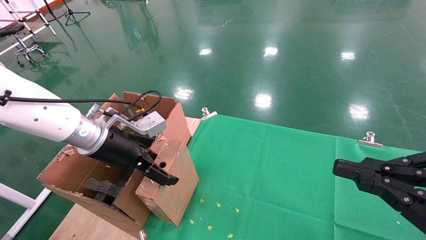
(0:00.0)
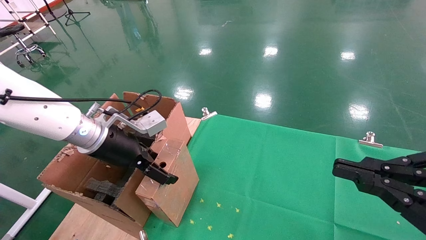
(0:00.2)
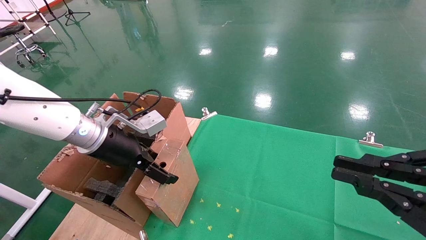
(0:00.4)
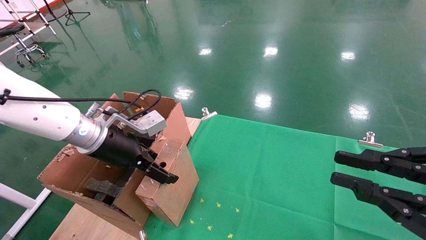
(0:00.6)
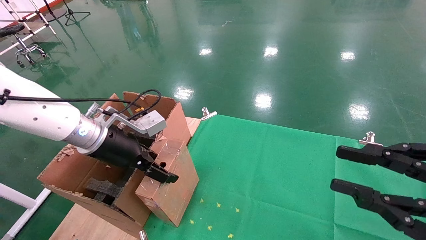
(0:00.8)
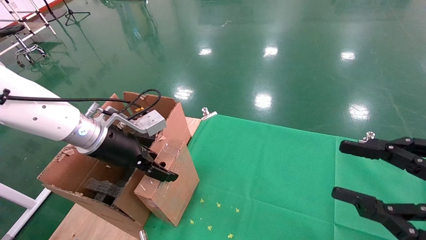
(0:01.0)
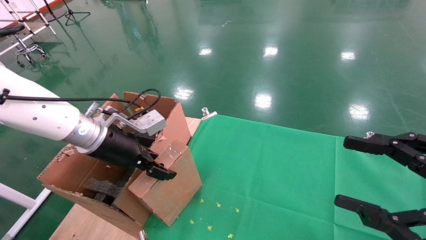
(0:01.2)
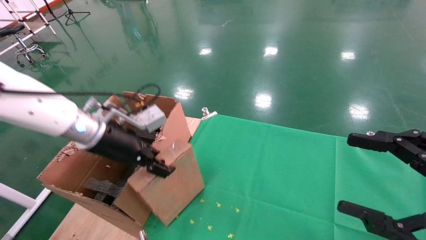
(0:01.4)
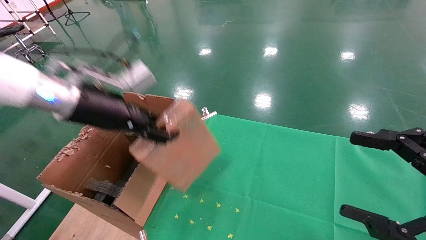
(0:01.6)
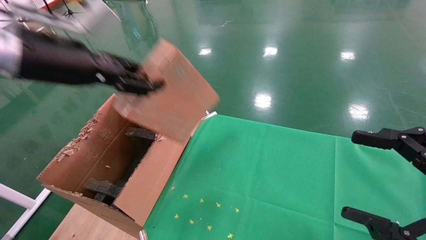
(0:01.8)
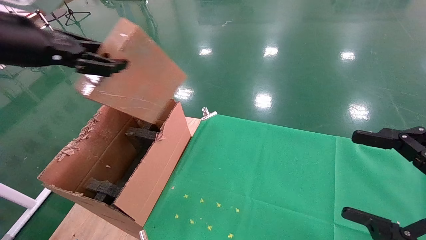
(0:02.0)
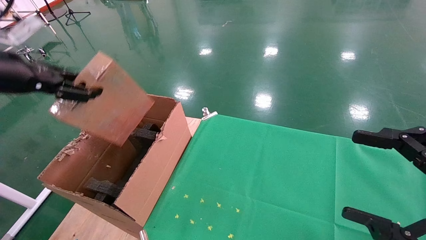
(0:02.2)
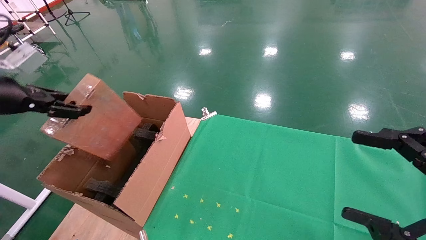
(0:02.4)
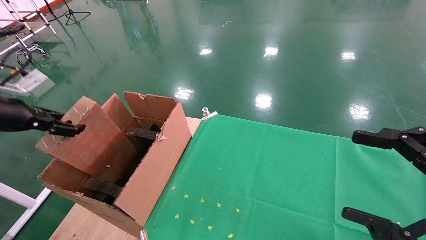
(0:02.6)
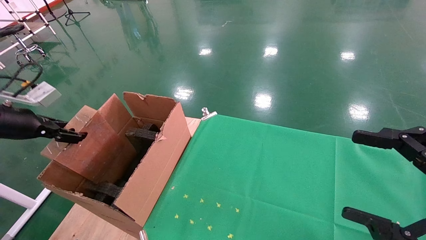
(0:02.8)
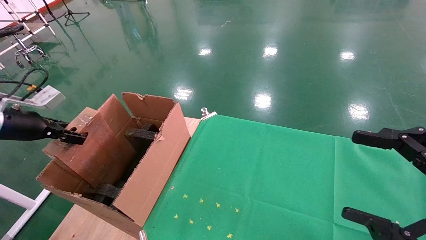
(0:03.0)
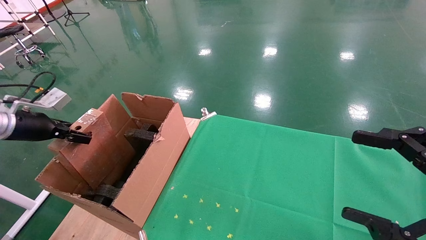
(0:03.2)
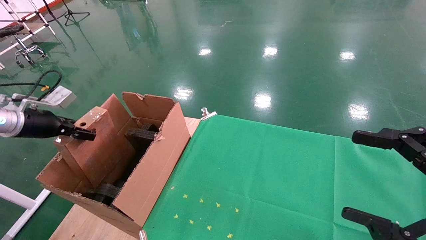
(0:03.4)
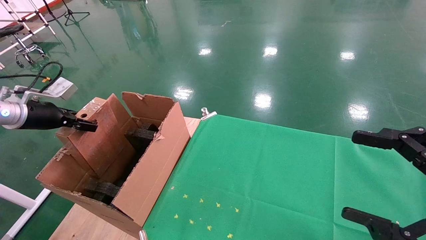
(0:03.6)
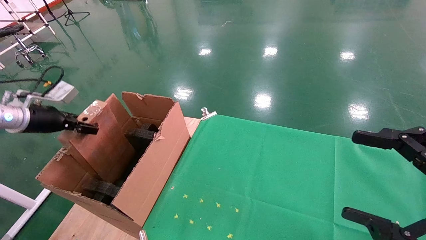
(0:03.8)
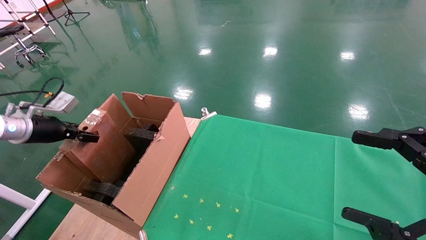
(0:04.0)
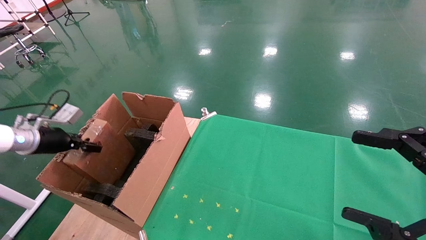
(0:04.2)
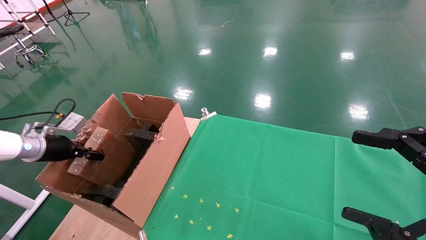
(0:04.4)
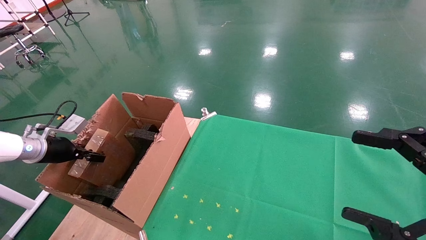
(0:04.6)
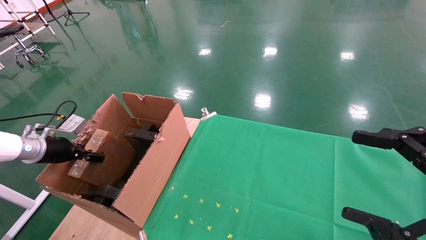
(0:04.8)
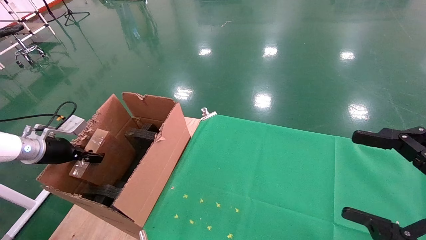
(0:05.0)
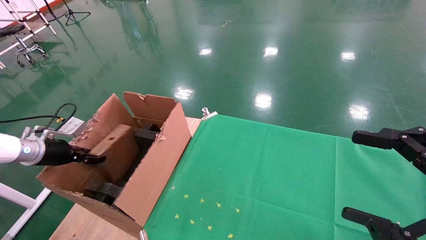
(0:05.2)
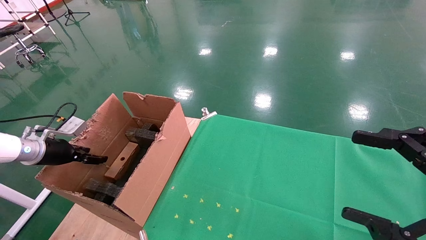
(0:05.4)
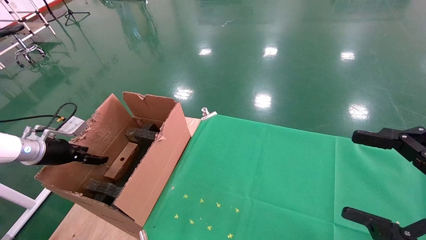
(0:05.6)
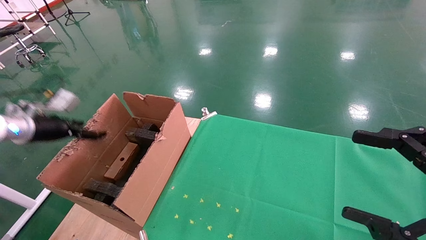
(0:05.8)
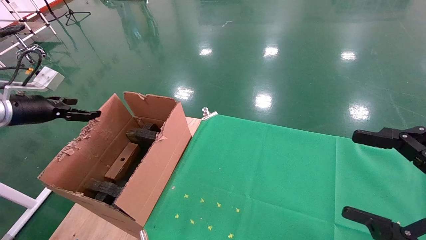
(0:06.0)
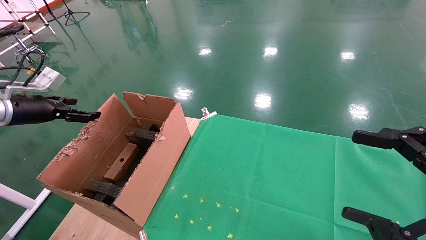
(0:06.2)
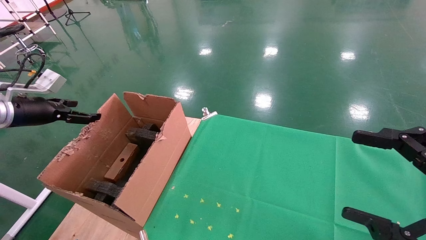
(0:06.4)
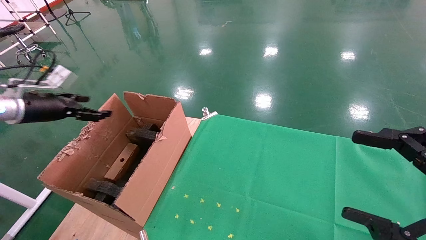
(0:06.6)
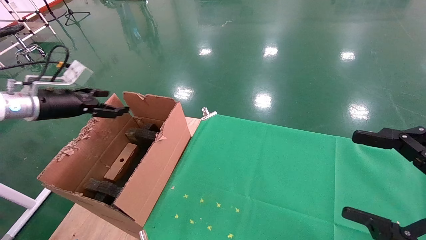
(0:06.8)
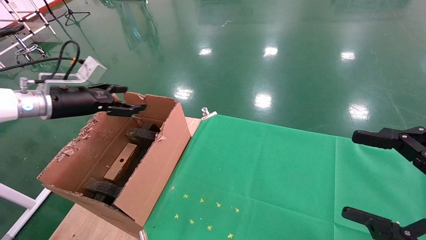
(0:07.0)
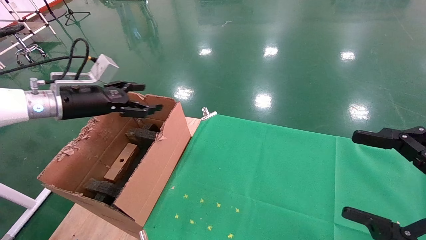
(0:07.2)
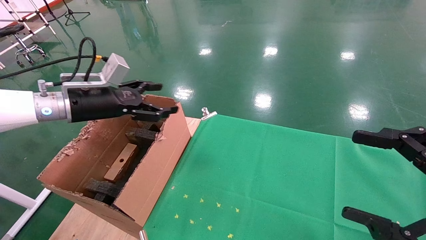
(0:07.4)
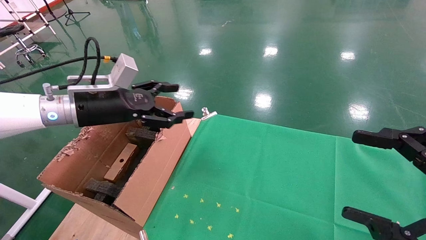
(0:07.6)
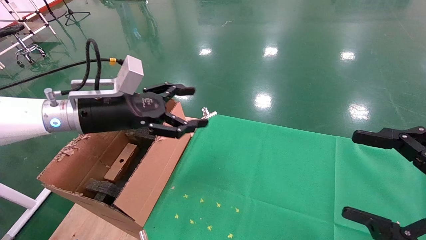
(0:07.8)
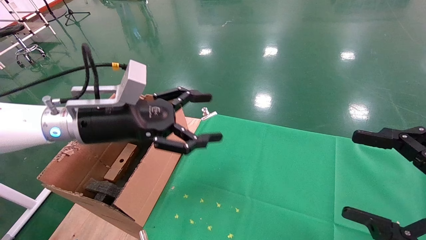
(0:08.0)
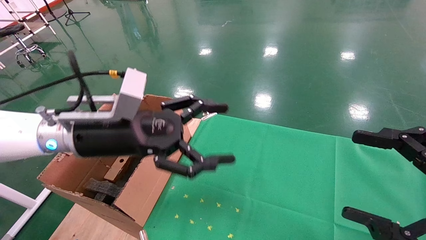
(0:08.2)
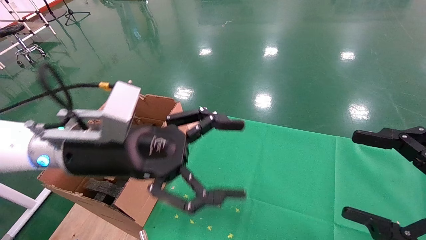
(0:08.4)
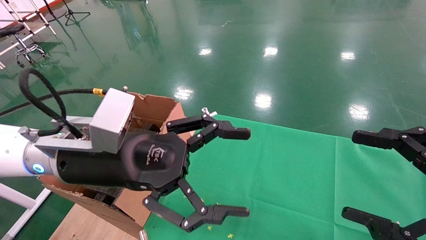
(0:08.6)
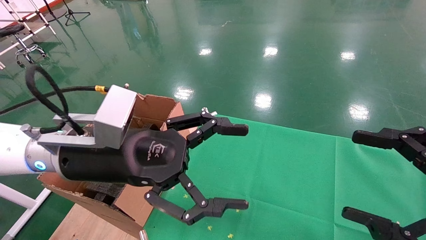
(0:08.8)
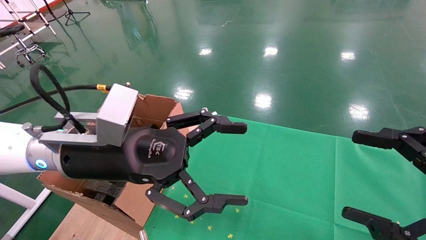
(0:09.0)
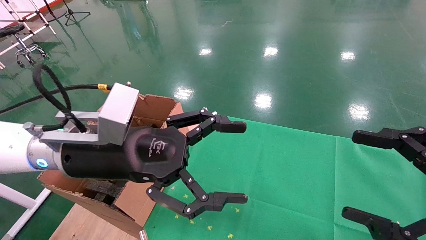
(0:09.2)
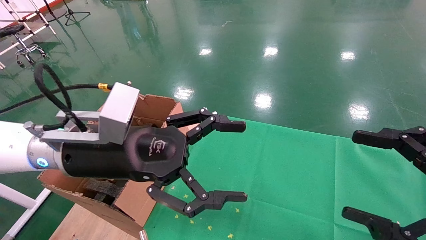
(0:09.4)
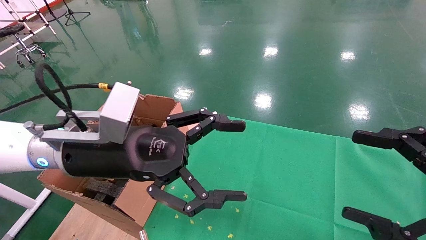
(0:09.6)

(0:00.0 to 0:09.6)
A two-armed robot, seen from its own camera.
Task of the whole recording: using a robotic arm to pick up a cardboard box and palace it the carton.
Step, 0:01.2 - 0:06.0: Place the mouse and the power cord paper box into the container.
0:00.0 - 0:01.6: The right gripper opens. The left gripper is displaced upward by about 10 cm, and closes its fingers.
0:01.6 - 0:03.2: The left gripper moves to the left, some 25 cm.
0:03.2 - 0:04.8: The left gripper is displaced downward by approximately 10 cm.
0:04.8 - 0:06.4: The left gripper moves upward, roughly 10 cm, and opens.
0:06.4 - 0:08.0: The left gripper shifts about 25 cm to the right.
0:08.0 - 0:09.6: The left gripper goes approximately 10 cm backward and to the right.

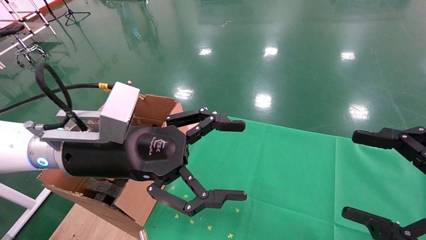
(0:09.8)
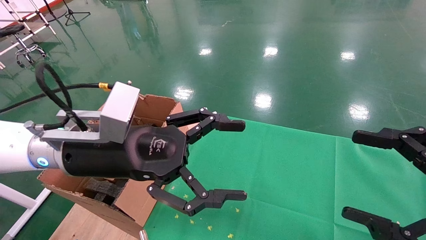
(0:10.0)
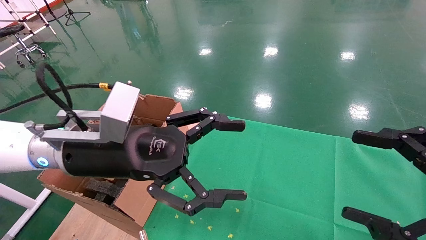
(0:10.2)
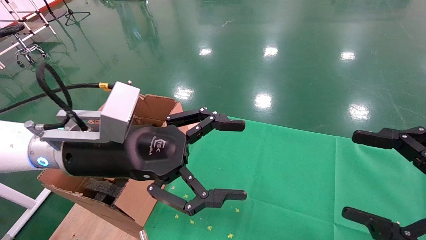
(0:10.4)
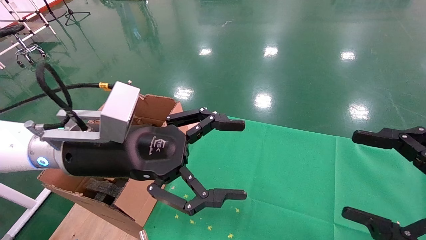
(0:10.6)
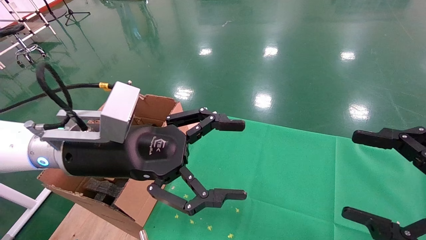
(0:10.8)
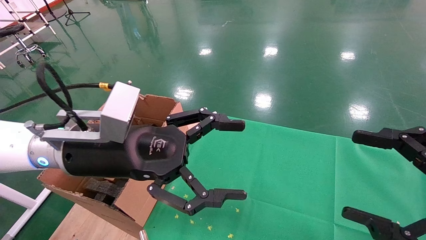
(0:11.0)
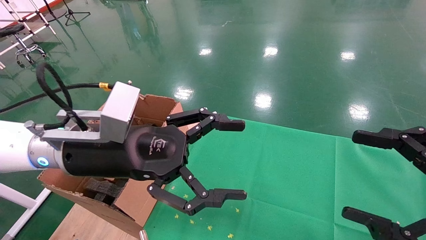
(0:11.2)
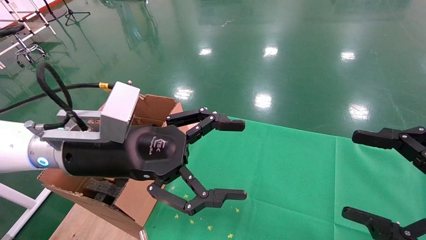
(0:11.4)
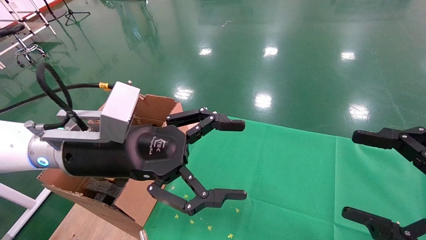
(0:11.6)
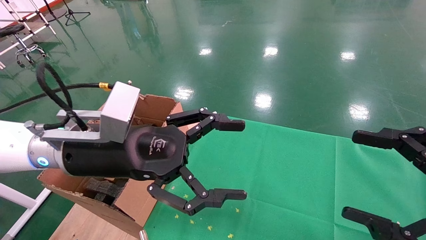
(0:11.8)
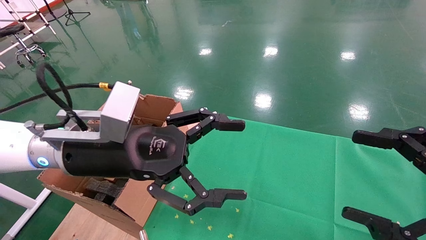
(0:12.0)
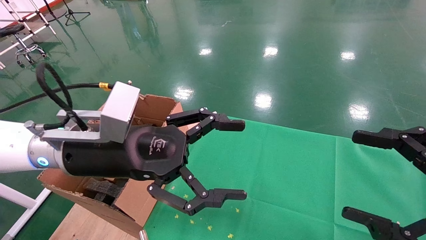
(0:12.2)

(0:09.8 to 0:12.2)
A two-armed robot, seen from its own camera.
Task of the whole recording: using a robotic arm to pick up a cardboard box and palace it the carton.
0:09.8 - 0:12.2: Neither gripper changes place.
